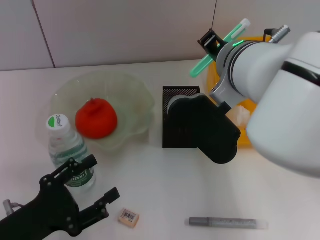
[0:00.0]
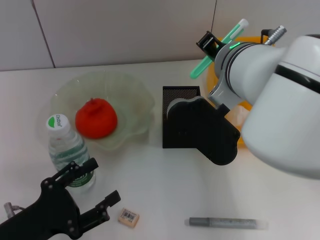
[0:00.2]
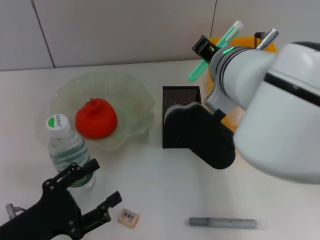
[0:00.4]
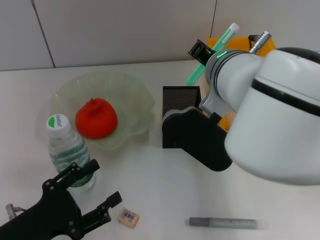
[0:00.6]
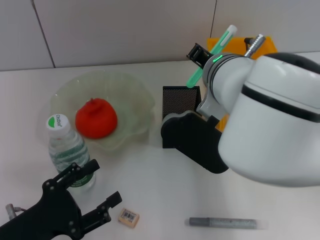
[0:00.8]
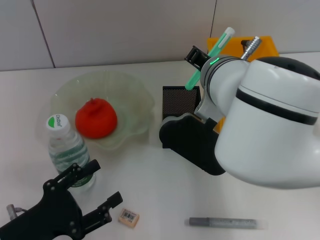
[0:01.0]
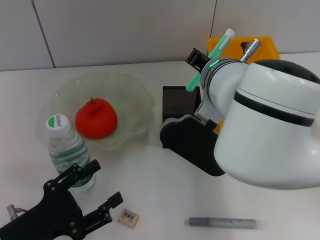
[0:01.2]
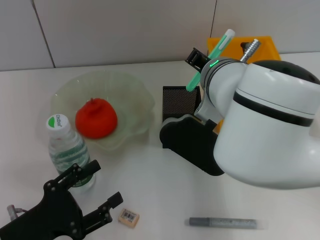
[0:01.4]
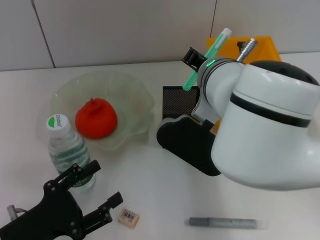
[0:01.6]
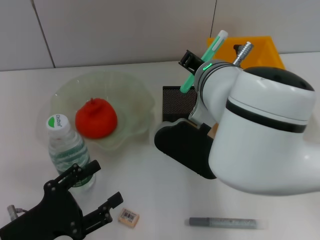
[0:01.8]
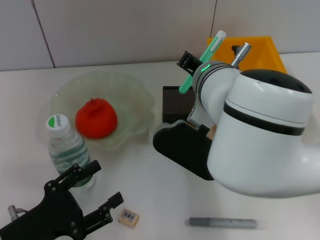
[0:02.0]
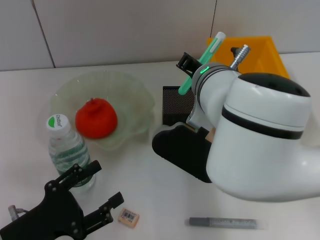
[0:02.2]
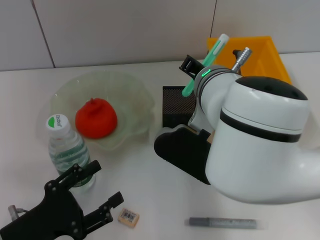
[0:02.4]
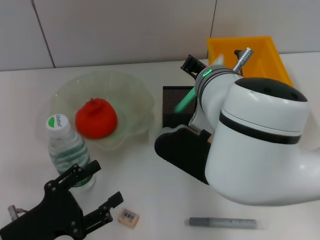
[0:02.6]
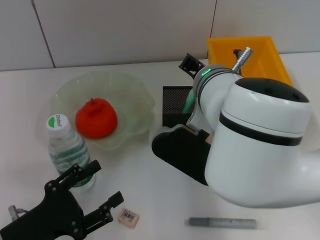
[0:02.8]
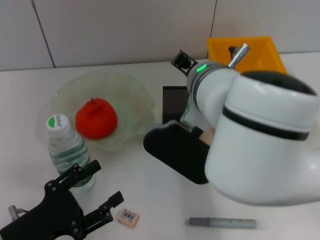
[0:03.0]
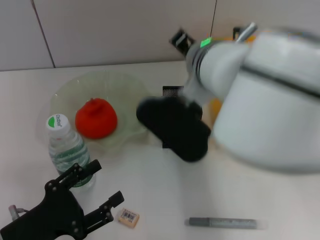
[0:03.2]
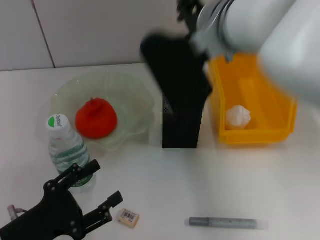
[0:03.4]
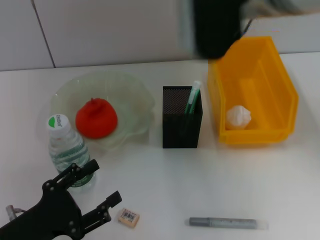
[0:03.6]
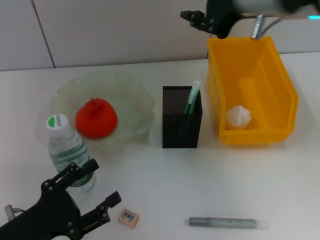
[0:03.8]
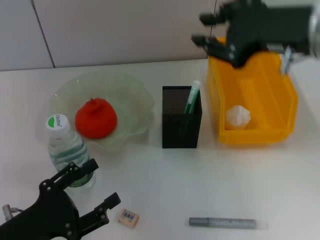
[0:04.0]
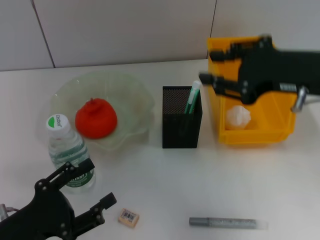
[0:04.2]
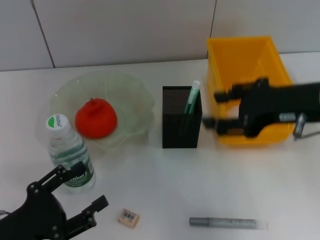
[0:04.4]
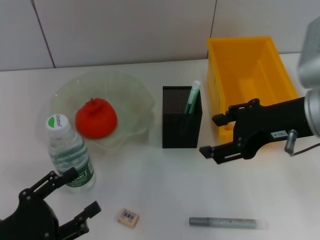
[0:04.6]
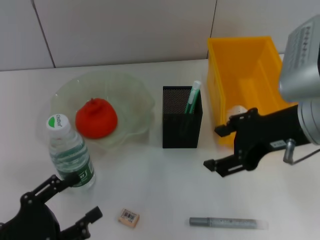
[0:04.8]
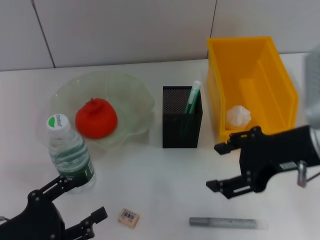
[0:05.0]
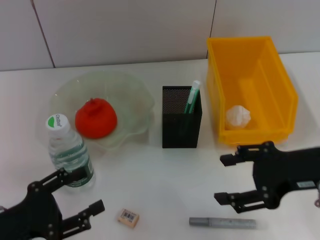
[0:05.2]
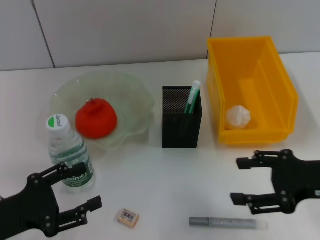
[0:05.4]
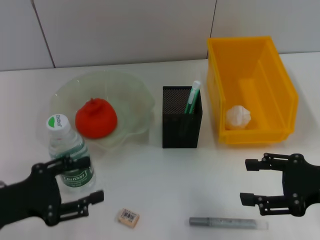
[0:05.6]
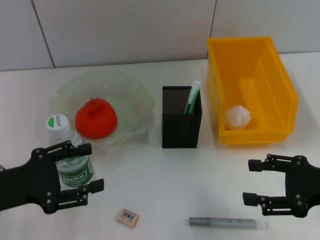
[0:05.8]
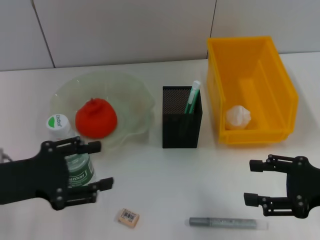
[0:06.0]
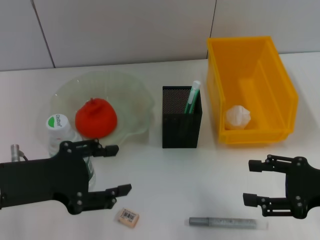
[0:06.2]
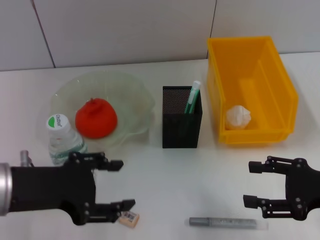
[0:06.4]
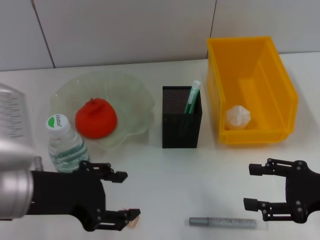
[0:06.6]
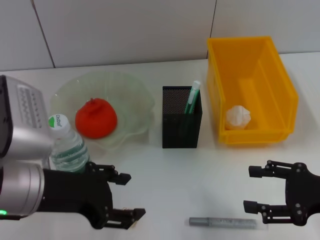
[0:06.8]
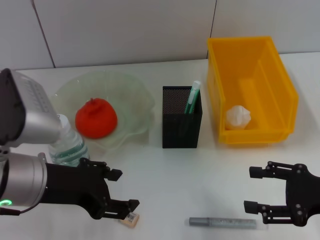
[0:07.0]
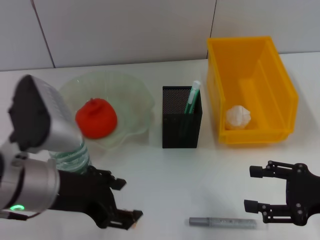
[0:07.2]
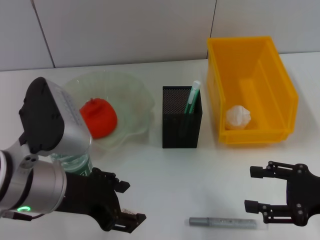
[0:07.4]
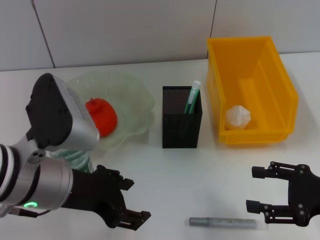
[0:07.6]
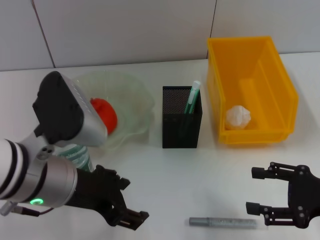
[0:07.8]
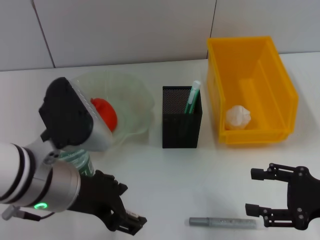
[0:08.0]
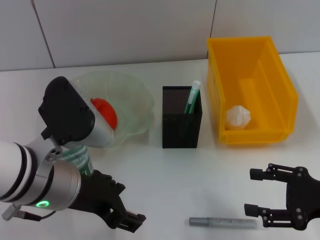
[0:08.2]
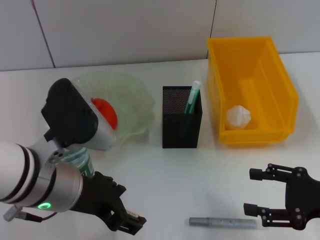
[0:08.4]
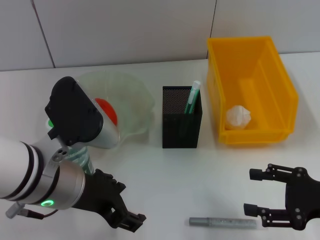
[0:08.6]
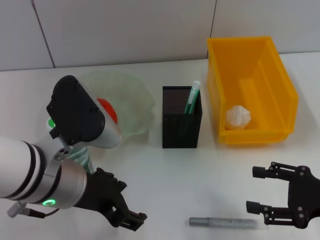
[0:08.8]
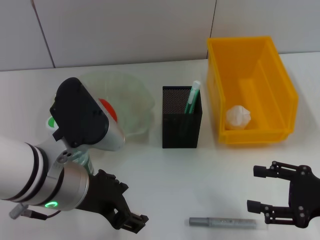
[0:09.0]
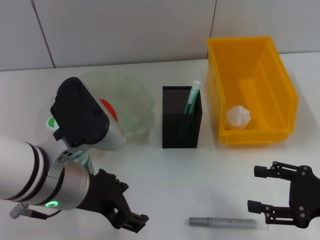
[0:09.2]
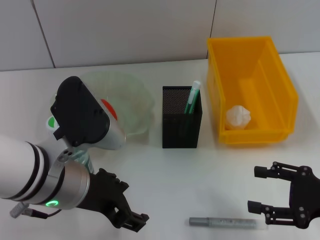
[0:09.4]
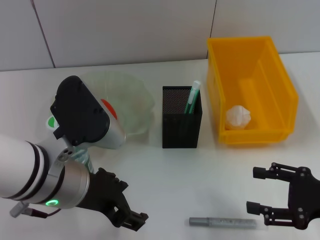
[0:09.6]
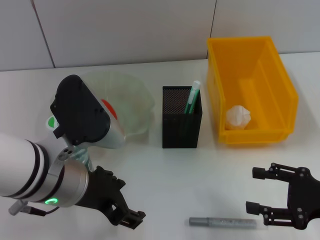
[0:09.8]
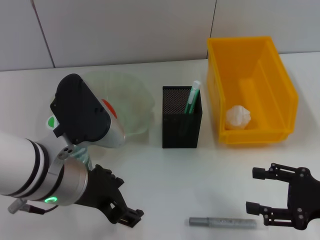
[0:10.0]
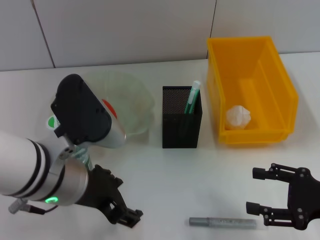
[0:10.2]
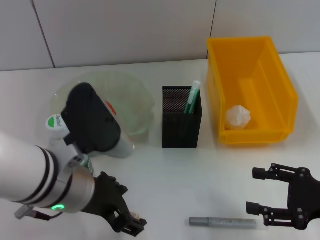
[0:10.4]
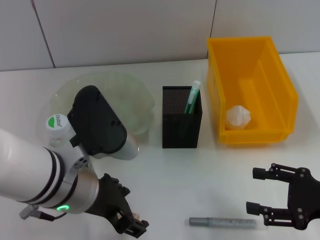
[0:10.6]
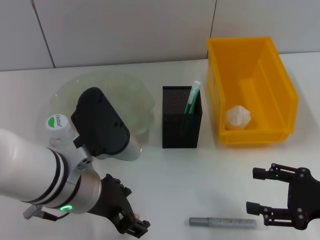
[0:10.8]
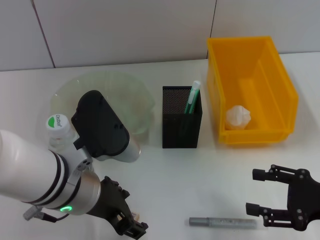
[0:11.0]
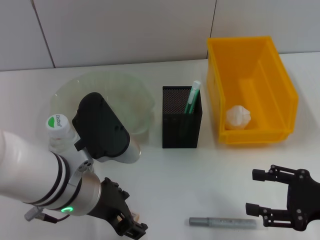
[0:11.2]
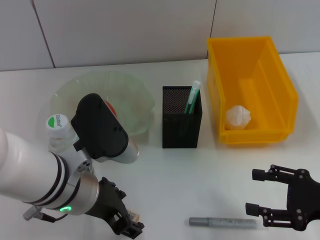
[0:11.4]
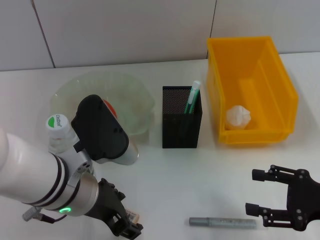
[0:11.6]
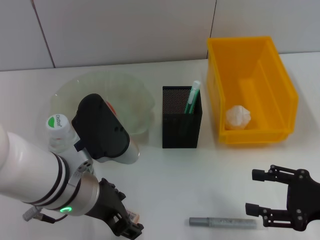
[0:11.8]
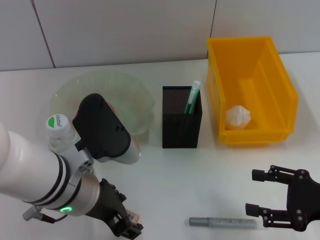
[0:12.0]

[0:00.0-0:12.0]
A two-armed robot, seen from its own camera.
Step, 0:00.0 to 0:03.0: Place the blue utility knife into the pen holder with the right hand.
0:01.6 to 0:03.0: There are only small adjustments of the grippers.
0:03.0 to 0:04.4: The right gripper is displaced to the right by roughly 20 cm.
0:04.4 to 0:06.0: The left gripper heads upward and forward, covering roughly 10 cm. Meanwhile the right gripper heads downward, to the right and backward, covering about 15 cm, and opens its fingers.
0:06.0 to 0:07.6: The left gripper moves to the right, roughly 10 cm.
0:07.6 to 0:09.0: The grippers stay close to where they were, moving slightly.
0:09.0 to 0:10.4: Neither gripper changes place.
0:10.4 to 0:12.0: The grippers make only small movements.

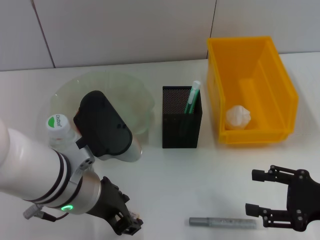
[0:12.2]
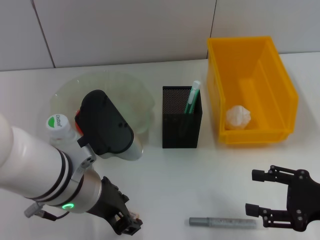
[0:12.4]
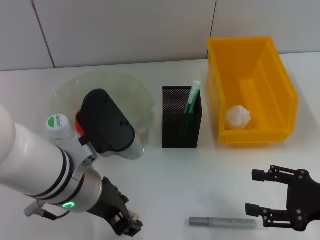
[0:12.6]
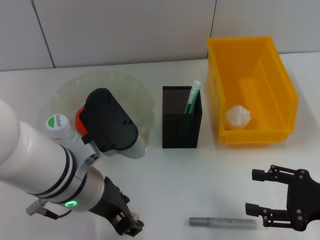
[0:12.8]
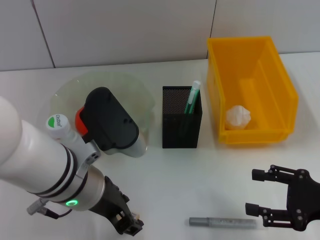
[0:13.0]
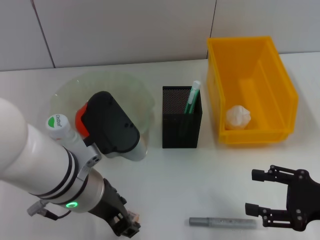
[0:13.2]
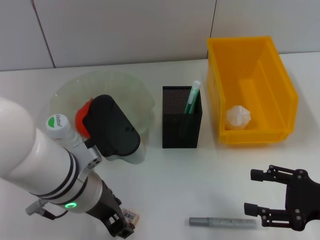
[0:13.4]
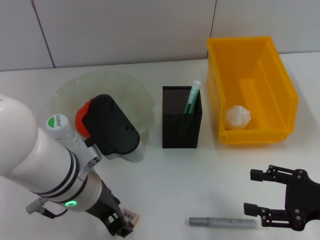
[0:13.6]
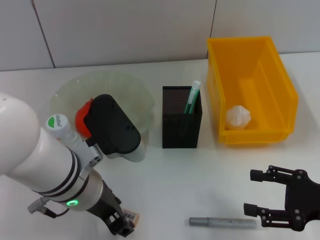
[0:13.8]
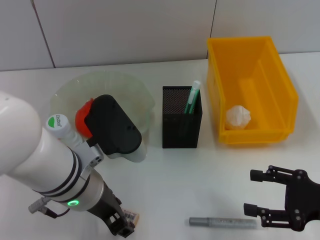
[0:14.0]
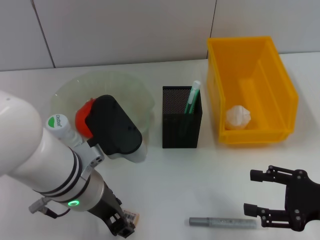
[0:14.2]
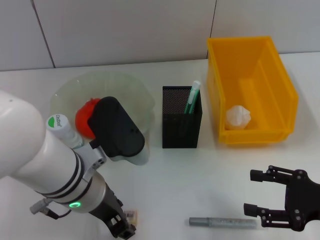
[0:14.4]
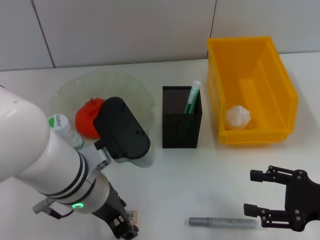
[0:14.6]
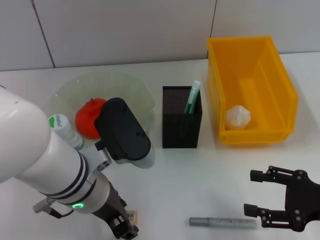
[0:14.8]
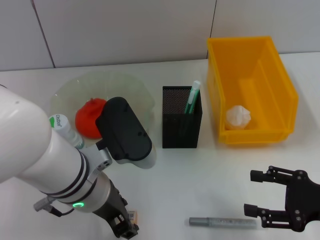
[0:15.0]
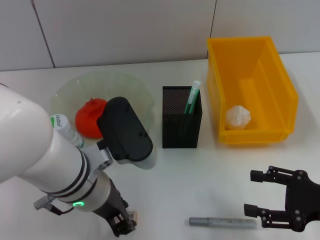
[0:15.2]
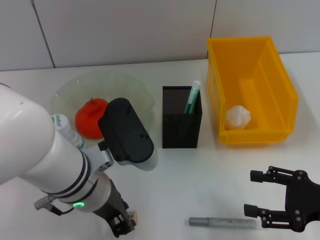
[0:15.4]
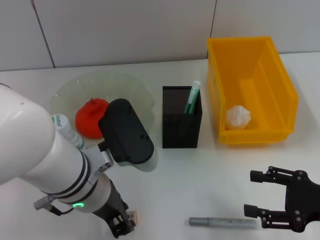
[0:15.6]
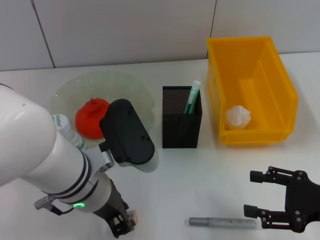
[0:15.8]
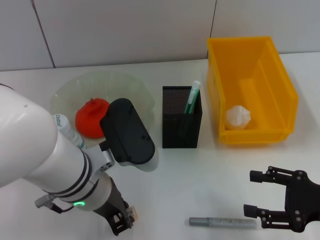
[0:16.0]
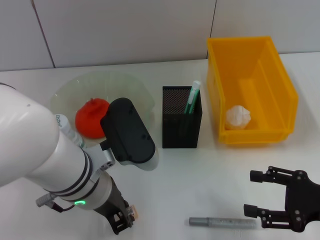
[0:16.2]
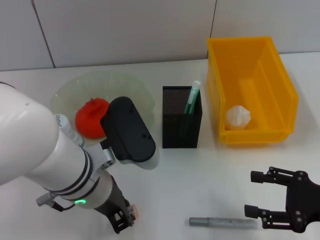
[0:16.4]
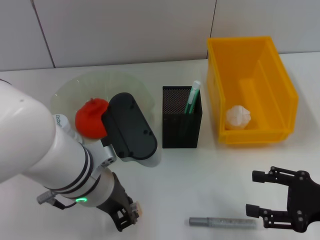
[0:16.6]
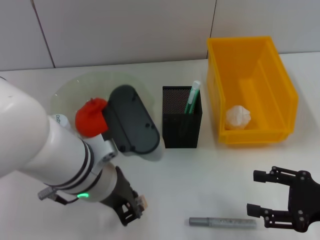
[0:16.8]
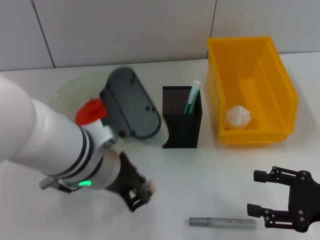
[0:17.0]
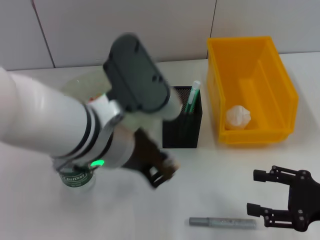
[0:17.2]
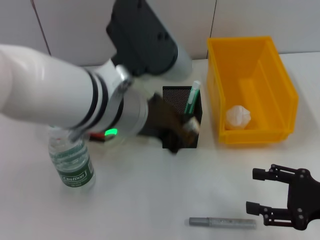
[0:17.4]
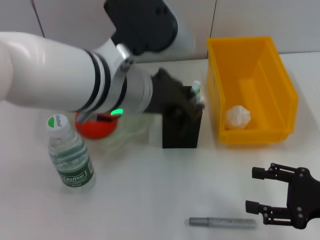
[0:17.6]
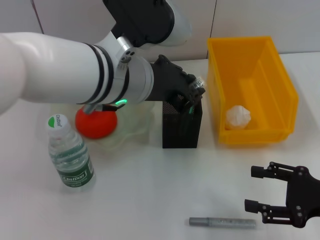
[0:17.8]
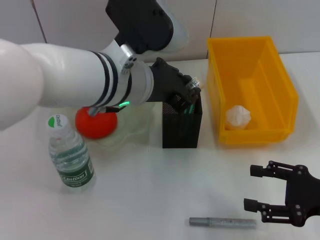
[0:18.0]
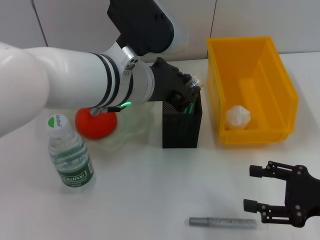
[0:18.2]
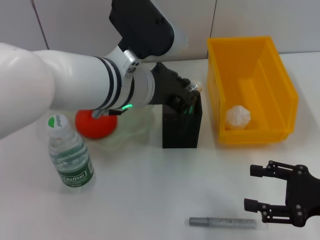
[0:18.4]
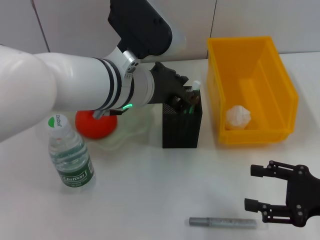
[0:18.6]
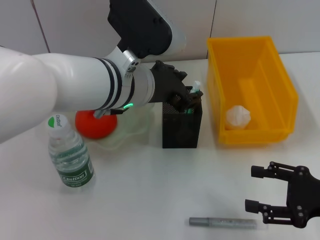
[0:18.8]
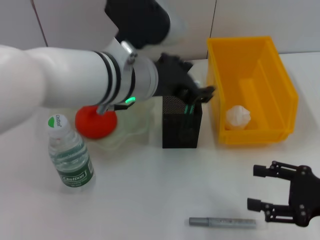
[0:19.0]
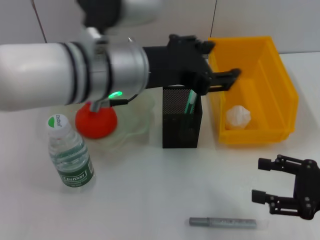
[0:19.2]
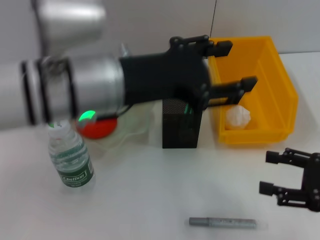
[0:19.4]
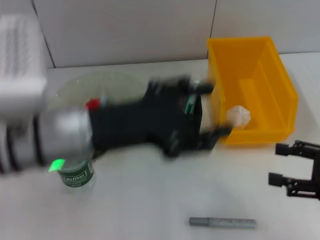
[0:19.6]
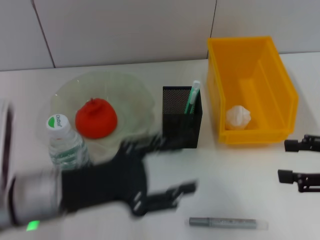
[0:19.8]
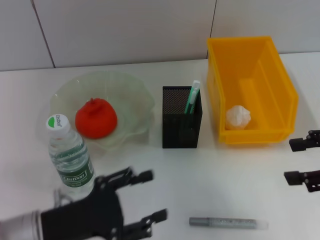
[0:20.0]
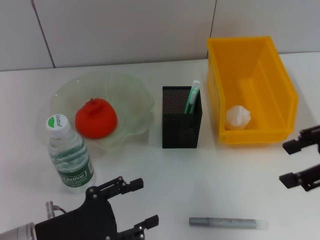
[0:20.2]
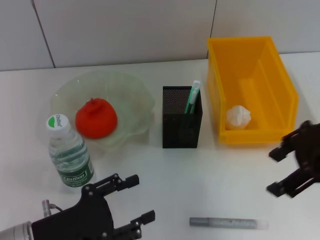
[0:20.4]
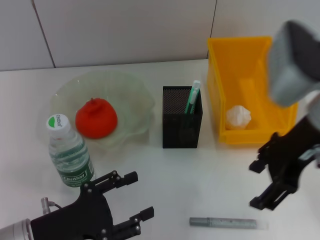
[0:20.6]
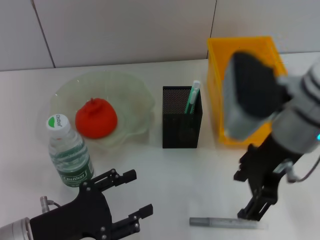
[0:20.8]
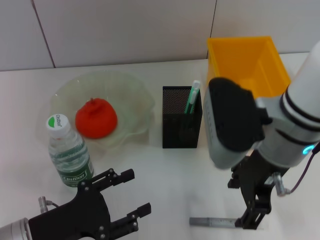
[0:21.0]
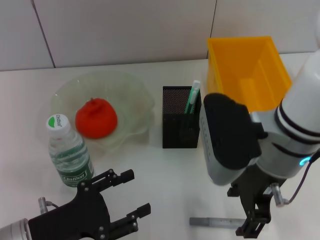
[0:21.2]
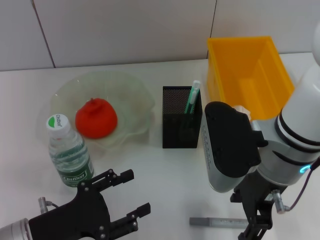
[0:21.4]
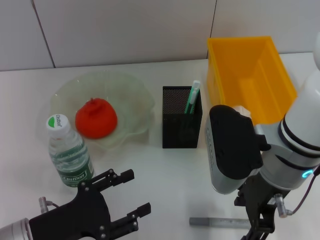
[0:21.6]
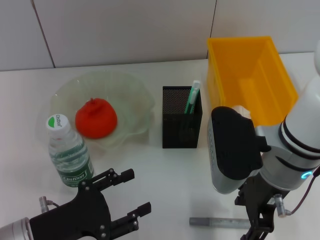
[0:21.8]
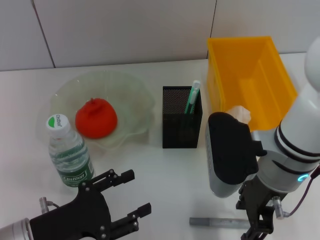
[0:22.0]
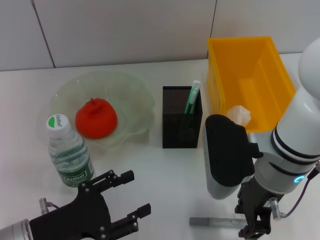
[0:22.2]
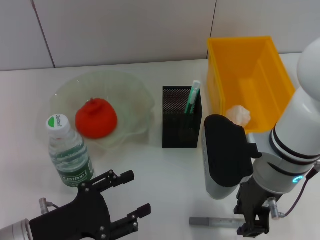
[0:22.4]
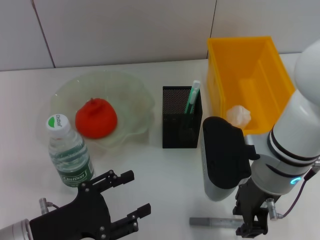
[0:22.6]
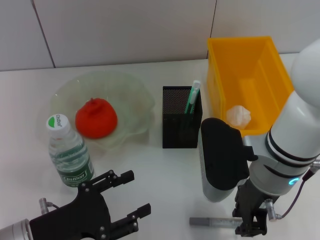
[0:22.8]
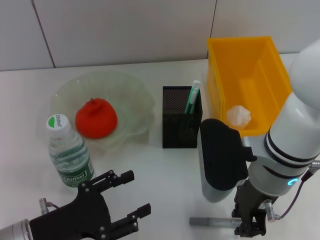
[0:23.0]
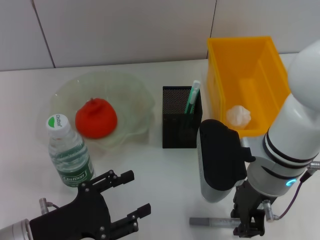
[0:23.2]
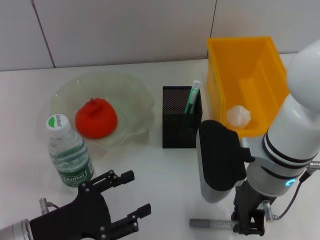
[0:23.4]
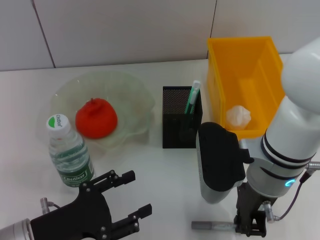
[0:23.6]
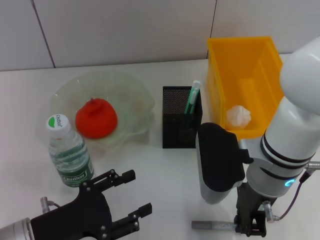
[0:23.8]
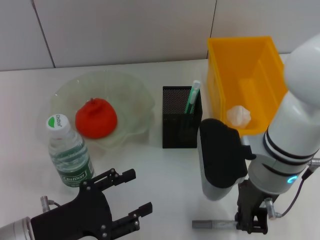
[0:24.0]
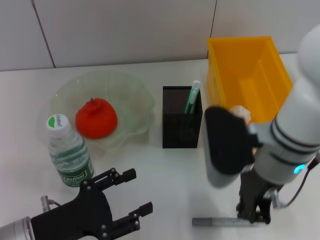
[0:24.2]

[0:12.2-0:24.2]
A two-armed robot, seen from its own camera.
Step, 0:12.2 to 0:16.0: Grab the eraser with the left hand.
Step, 0:16.2 to 0:19.0: Place the eraser into the pen holder with the left hand.
0:12.2 to 0:13.8: The left gripper closes.
0:13.8 to 0:15.2: The grippers stay close to where they were, moving slightly.
0:15.2 to 0:16.6: The left gripper closes.
0:16.6 to 0:18.2: The left gripper heads forward and upward, covering approximately 10 cm.
0:18.2 to 0:19.8: The left gripper shifts approximately 20 cm to the left, downward and backward, and opens its fingers. The right gripper goes approximately 10 cm upward.
0:19.8 to 0:21.2: The left gripper moves downward, about 5 cm, while the right gripper moves to the left, some 20 cm.
0:21.2 to 0:22.6: The right gripper closes.
0:22.6 to 0:24.2: The right gripper closes.
